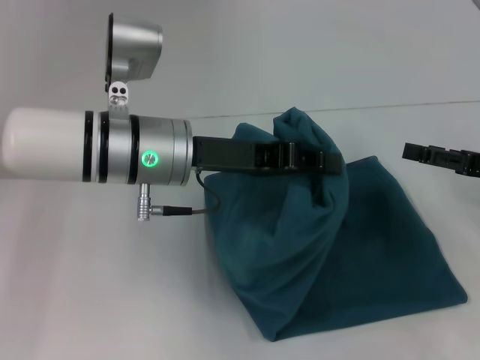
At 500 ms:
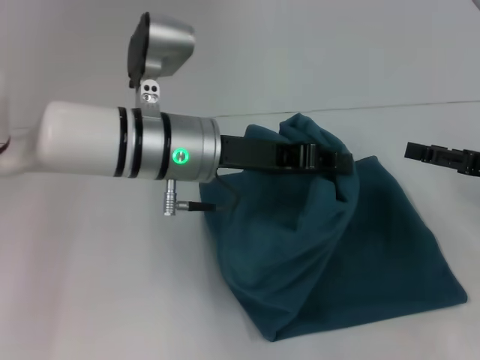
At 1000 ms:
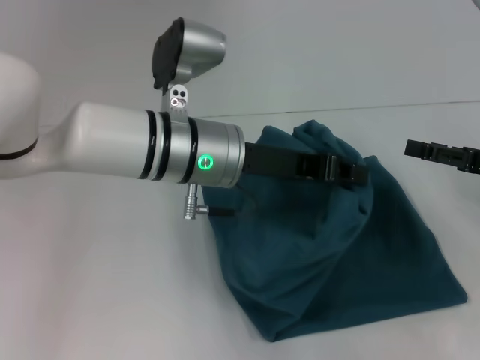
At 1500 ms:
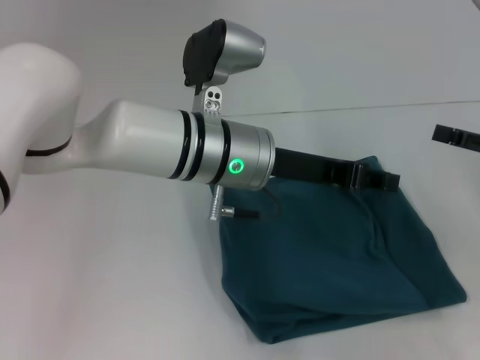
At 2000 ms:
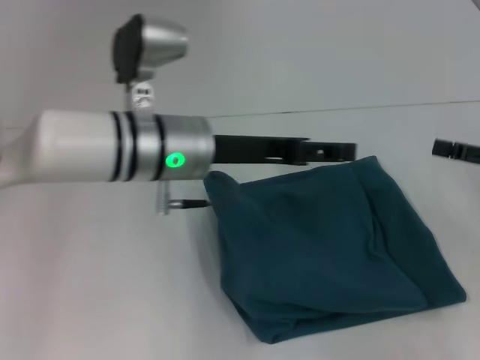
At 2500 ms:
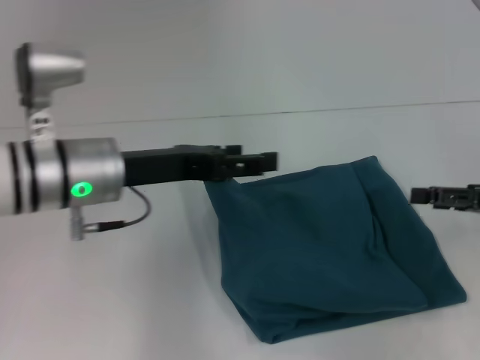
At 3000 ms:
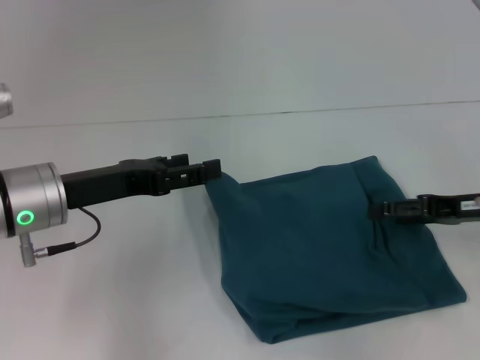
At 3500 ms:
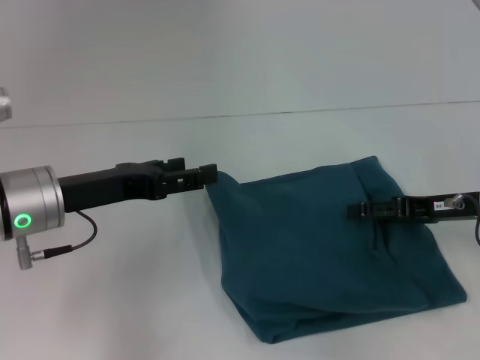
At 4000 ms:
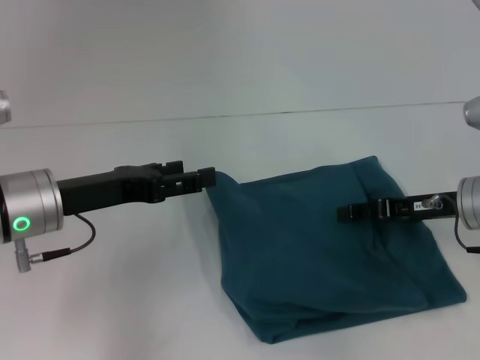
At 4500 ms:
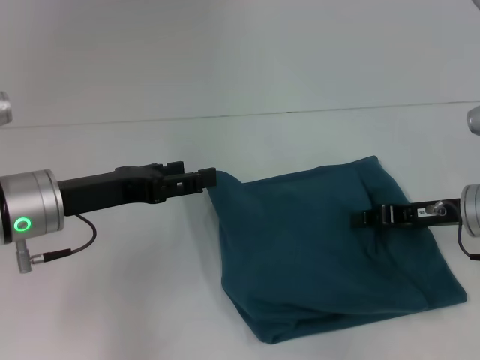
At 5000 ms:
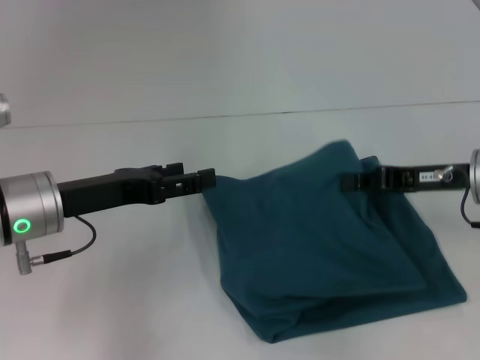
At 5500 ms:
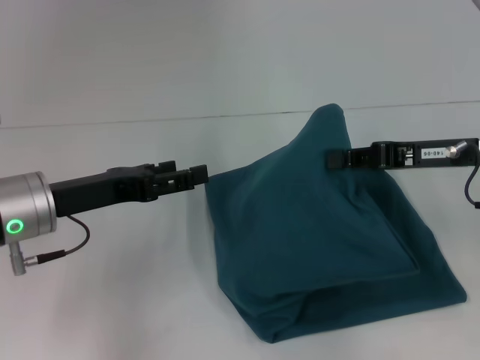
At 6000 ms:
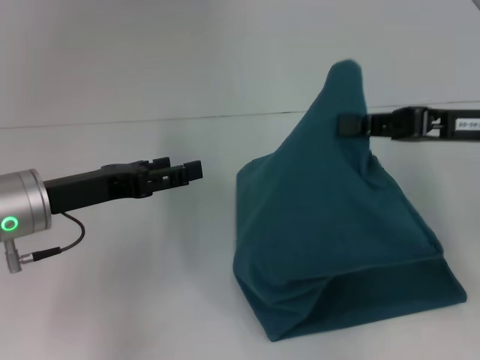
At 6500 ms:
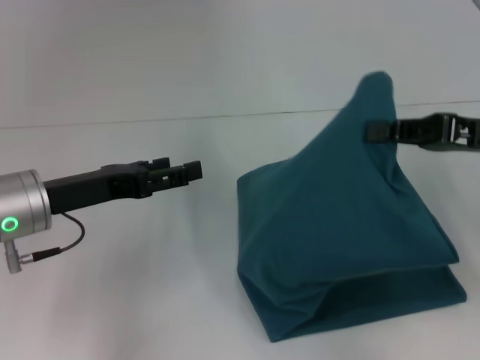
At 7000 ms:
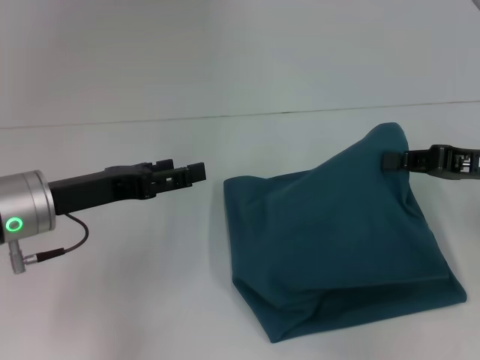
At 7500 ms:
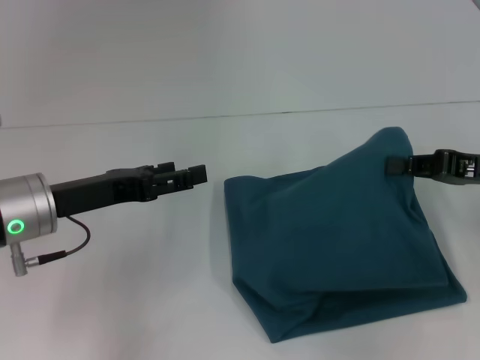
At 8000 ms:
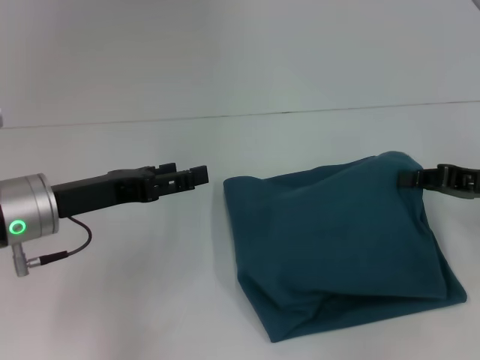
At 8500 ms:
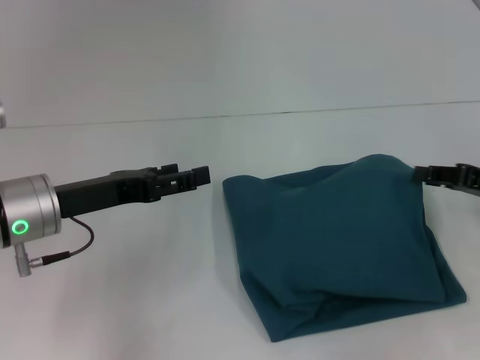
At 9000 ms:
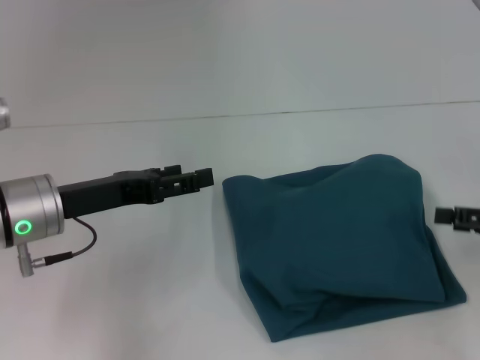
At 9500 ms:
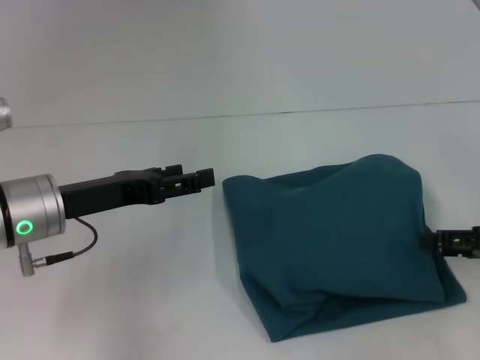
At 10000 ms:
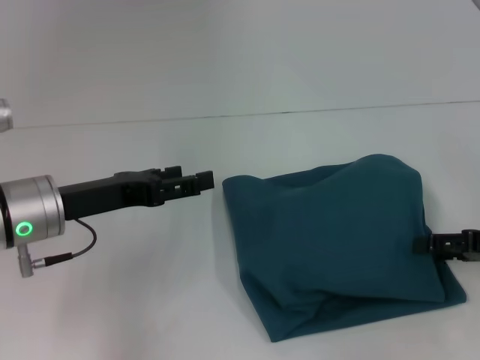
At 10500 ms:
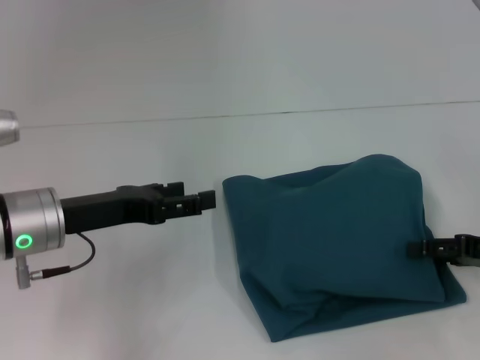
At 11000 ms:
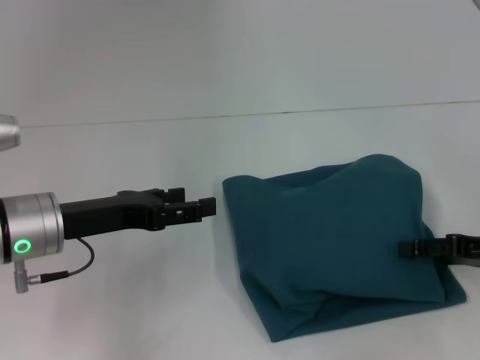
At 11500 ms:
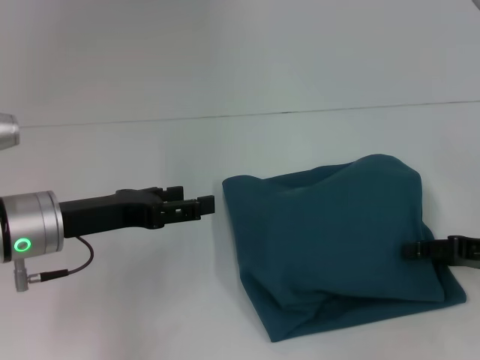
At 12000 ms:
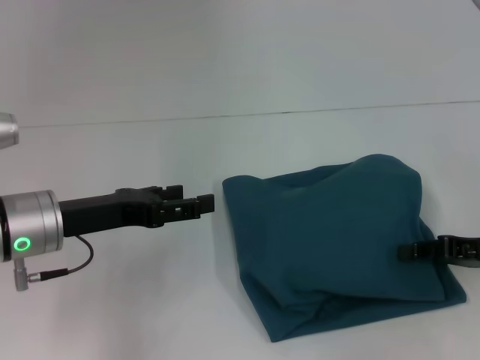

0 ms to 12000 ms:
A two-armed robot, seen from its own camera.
0 ms to 2000 ms: The left gripper opens.
2000 ms to 4000 ms: Both grippers travel together to the left, roughly 10 cm.
4000 ms to 6000 ms: The right gripper goes about 10 cm upward, and closes up.
6000 ms to 8000 ms: The right gripper travels downward and to the right by roughly 10 cm.
8000 ms to 10000 ms: The right gripper moves some 5 cm, and opens its fingers.
10000 ms to 12000 ms: The grippers make only small movements.

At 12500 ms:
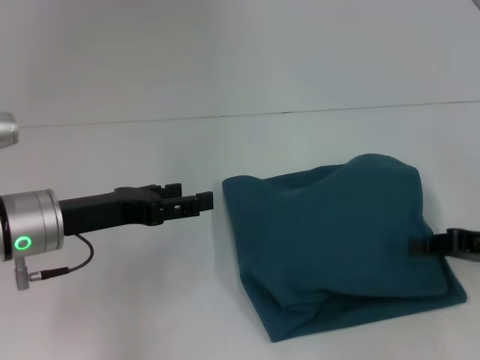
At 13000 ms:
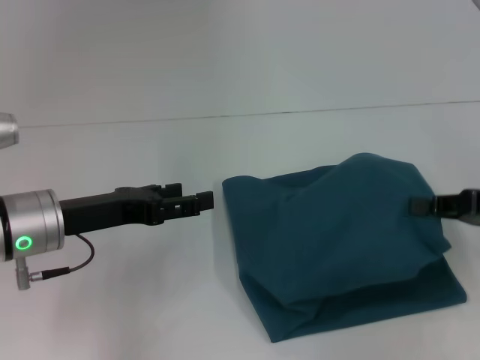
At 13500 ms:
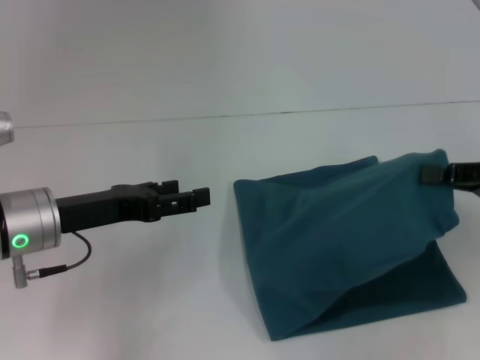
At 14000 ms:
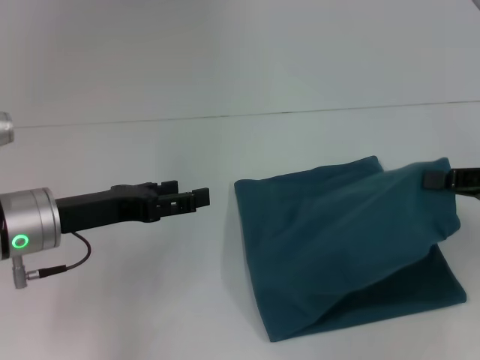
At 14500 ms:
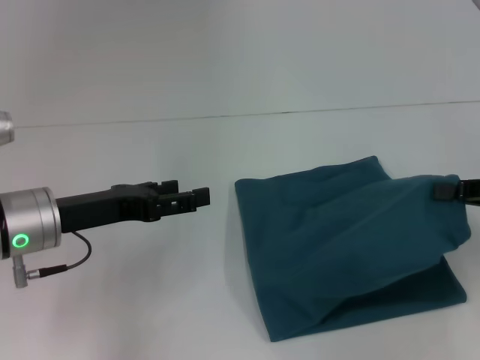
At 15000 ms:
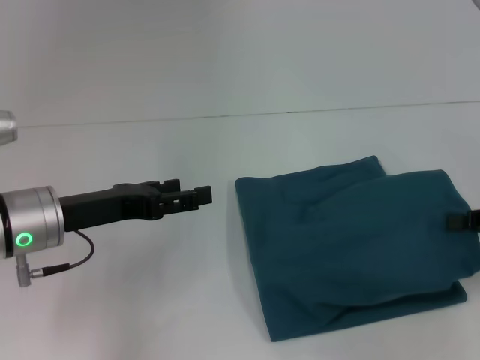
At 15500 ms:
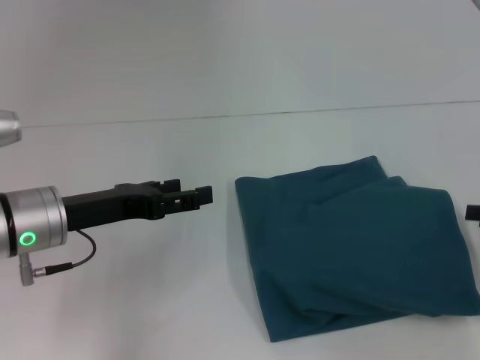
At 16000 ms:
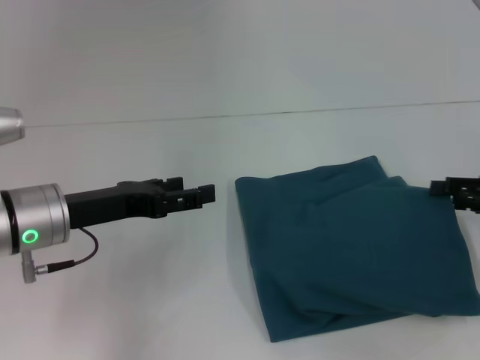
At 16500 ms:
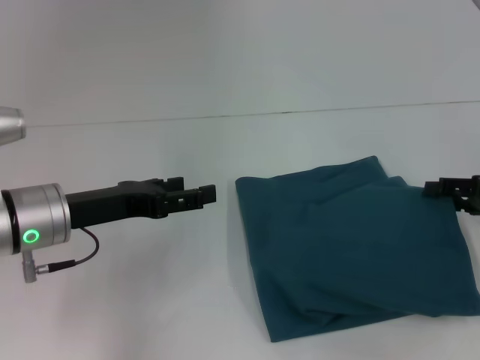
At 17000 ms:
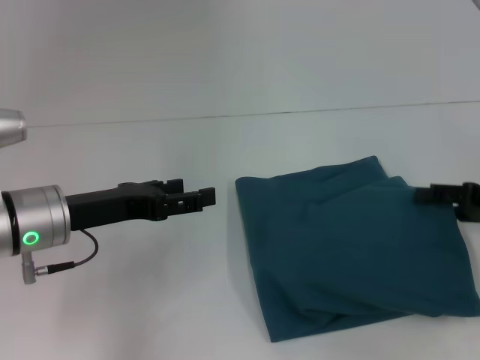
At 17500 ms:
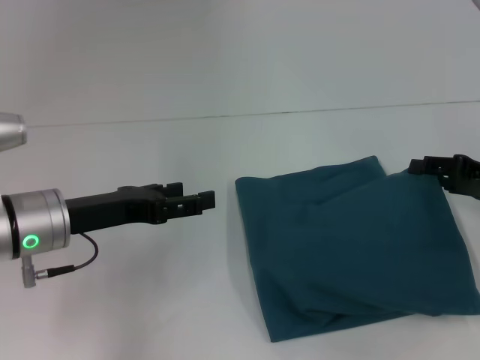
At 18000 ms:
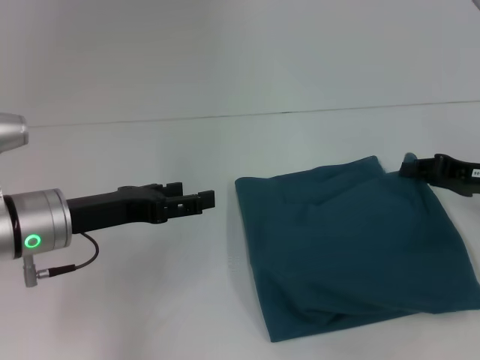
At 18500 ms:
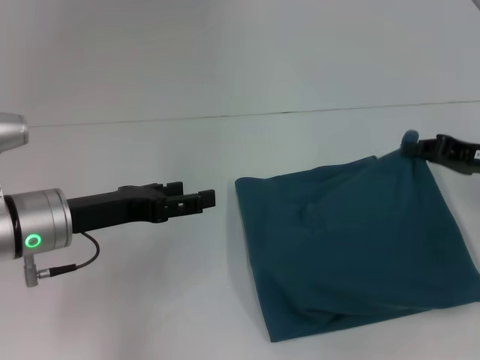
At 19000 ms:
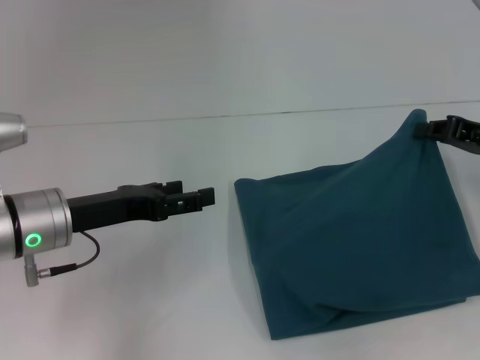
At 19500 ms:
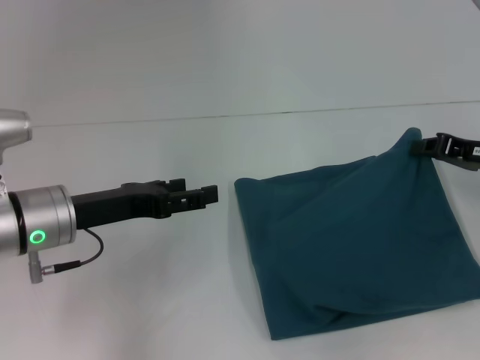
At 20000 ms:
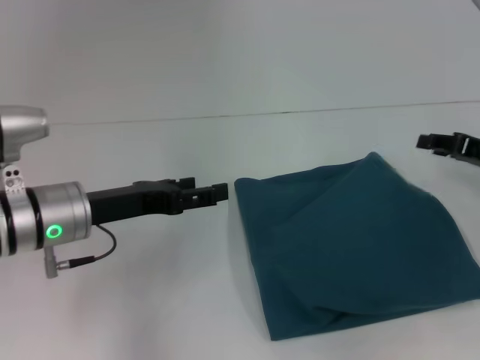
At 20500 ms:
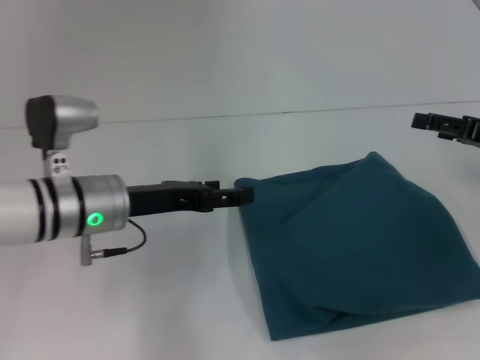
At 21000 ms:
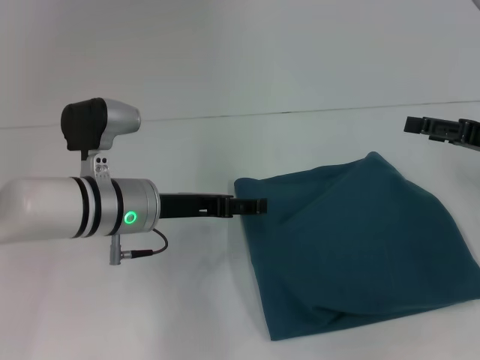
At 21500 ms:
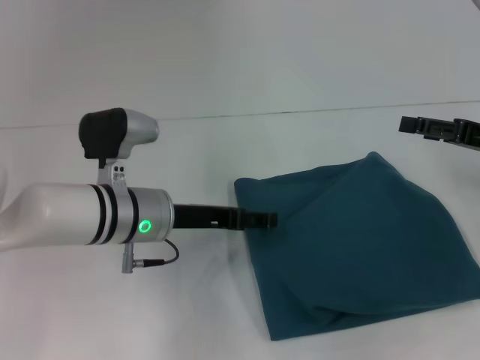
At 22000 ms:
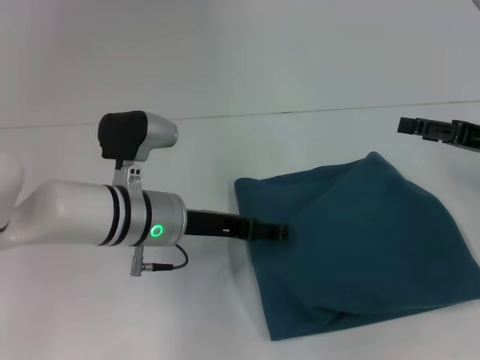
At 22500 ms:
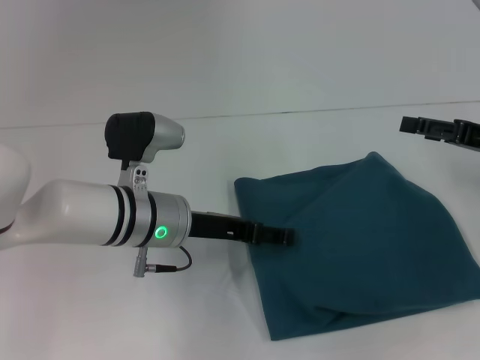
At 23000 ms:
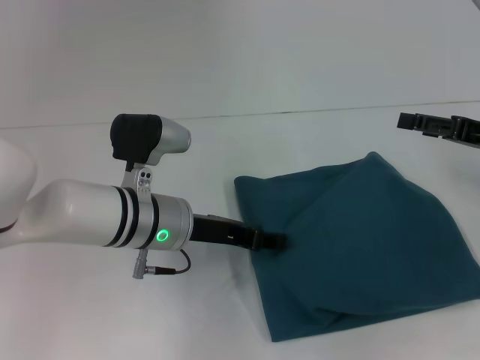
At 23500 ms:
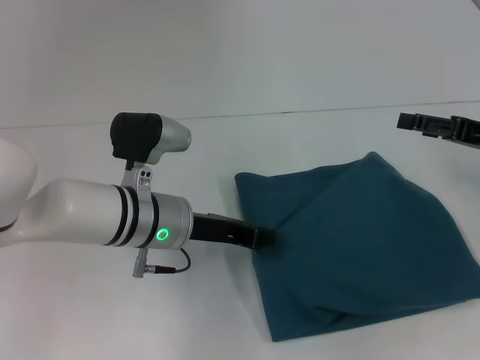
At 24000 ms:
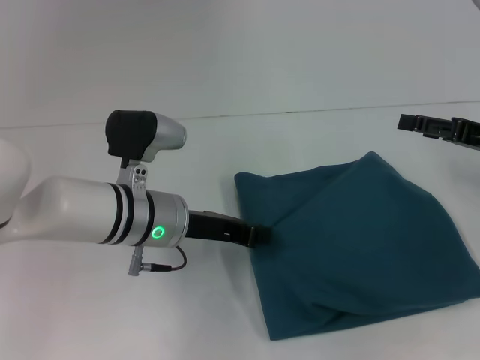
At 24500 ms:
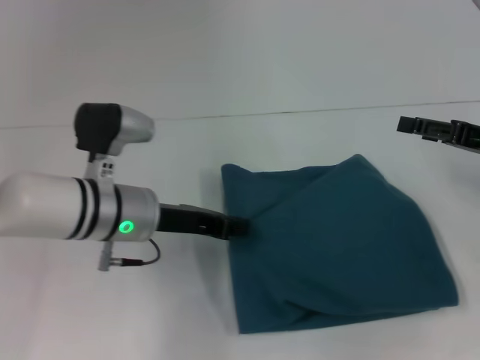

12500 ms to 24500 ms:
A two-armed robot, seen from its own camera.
12500 ms to 14500 ms: The right gripper moves upward, roughly 5 cm.
14500 ms to 16500 ms: The right gripper shifts by about 5 cm, and opens.
16500 ms to 18500 ms: The right gripper closes up.
18500 ms to 20500 ms: The right gripper opens up, while the left gripper changes place by some 5 cm.
20500 ms to 22500 ms: The left gripper heads to the right, covering about 5 cm.
22500 ms to 24500 ms: The left gripper closes its fingers.

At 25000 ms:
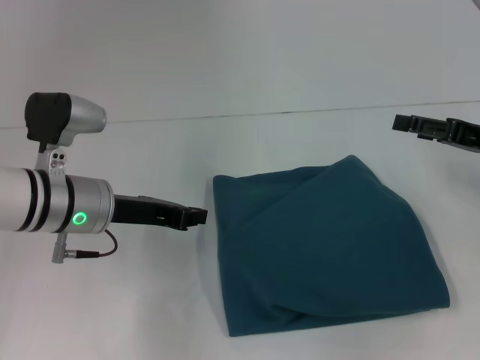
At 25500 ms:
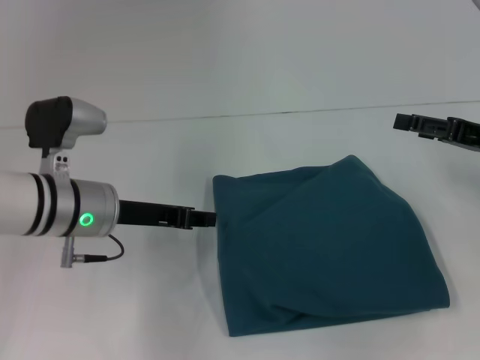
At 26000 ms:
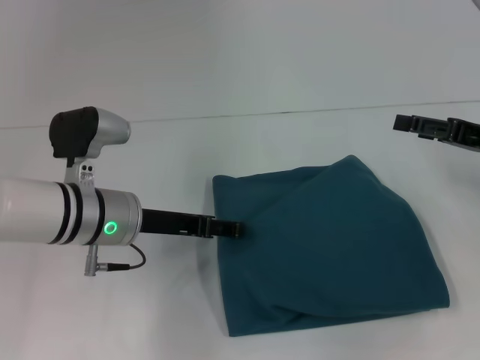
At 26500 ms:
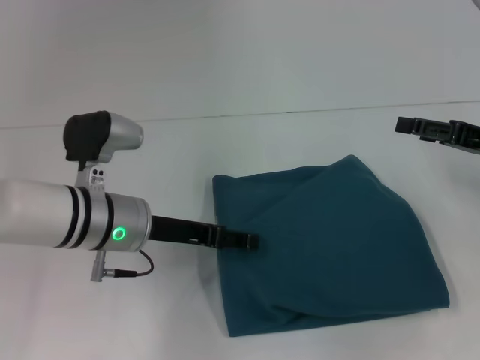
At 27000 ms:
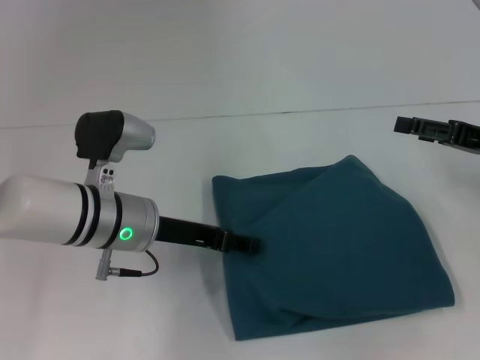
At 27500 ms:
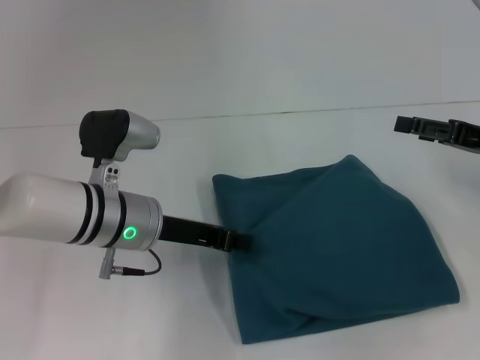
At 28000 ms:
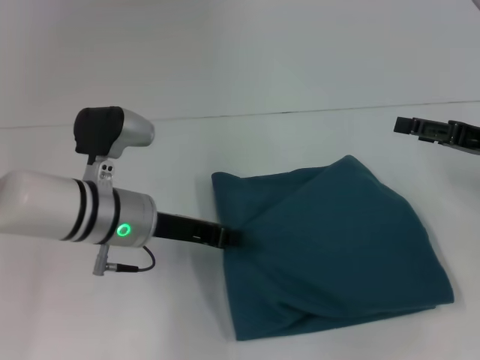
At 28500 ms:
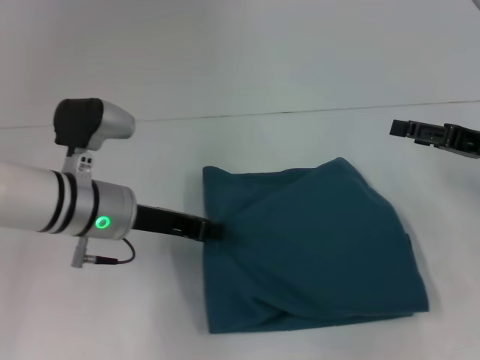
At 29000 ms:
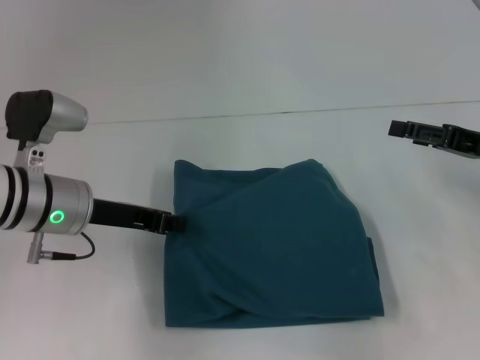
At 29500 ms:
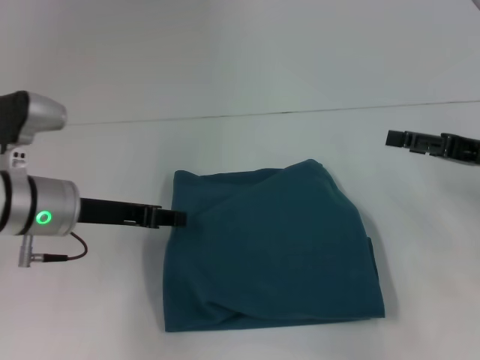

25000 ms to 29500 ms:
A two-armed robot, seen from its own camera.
25000 ms to 27000 ms: The left gripper opens.
27000 ms to 29500 ms: The left gripper travels to the left by roughly 5 cm, and closes up.
